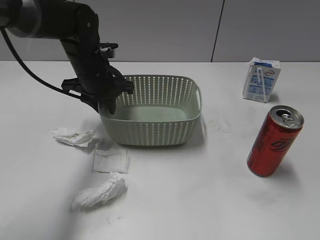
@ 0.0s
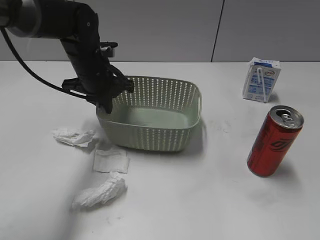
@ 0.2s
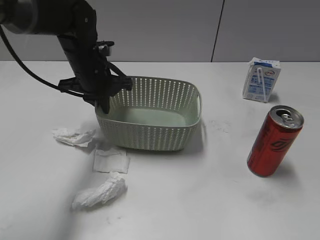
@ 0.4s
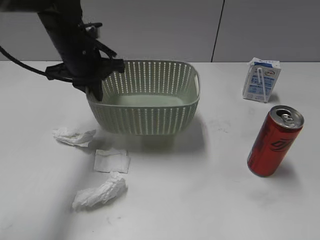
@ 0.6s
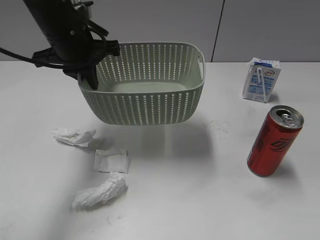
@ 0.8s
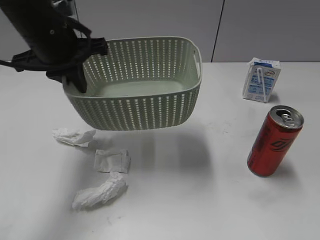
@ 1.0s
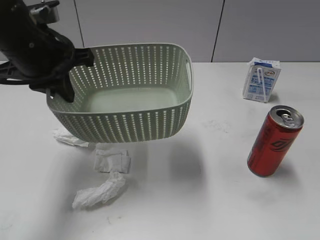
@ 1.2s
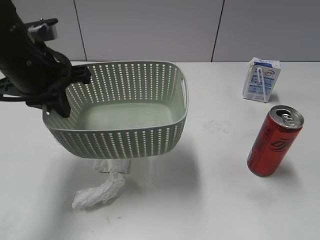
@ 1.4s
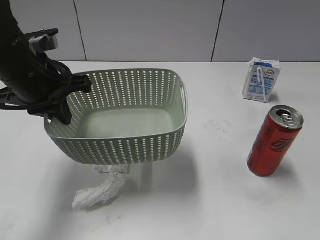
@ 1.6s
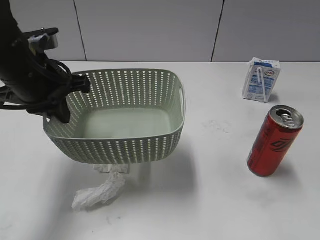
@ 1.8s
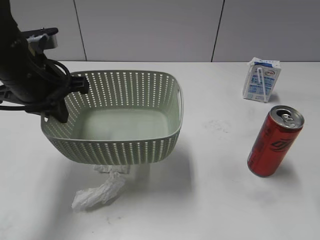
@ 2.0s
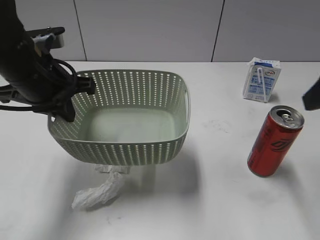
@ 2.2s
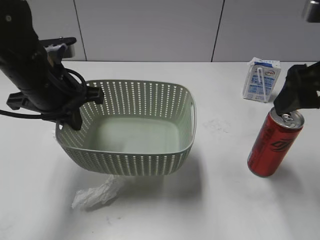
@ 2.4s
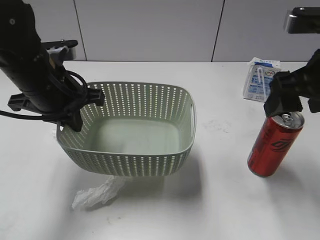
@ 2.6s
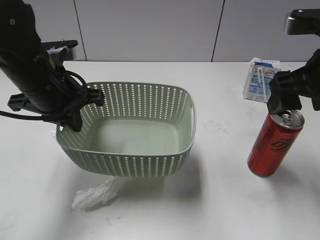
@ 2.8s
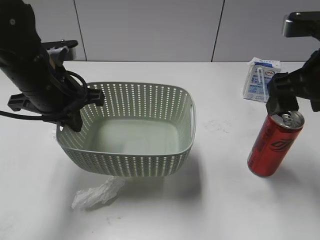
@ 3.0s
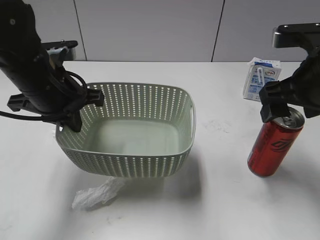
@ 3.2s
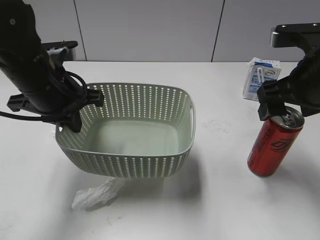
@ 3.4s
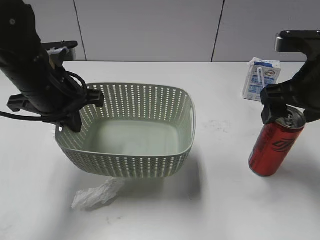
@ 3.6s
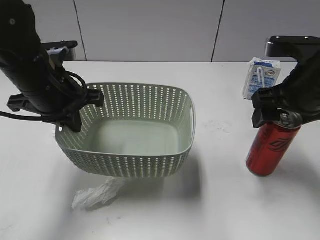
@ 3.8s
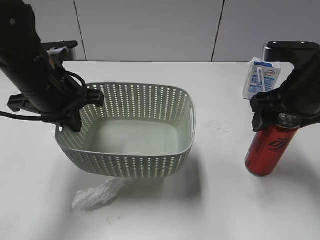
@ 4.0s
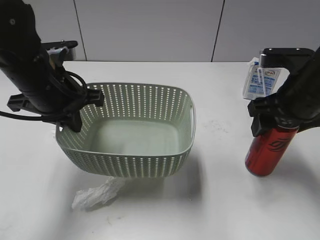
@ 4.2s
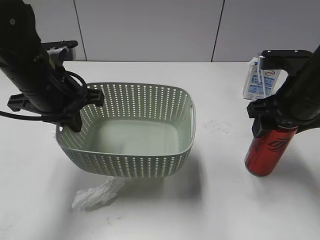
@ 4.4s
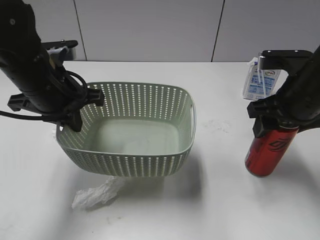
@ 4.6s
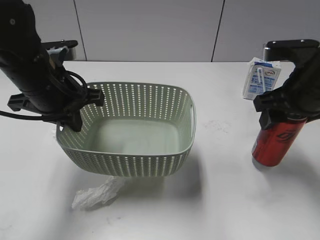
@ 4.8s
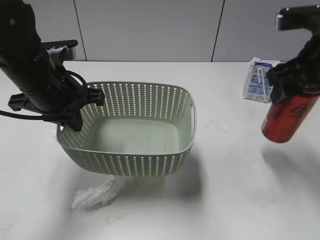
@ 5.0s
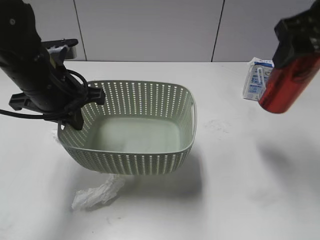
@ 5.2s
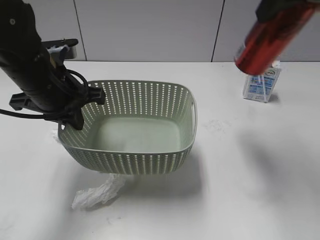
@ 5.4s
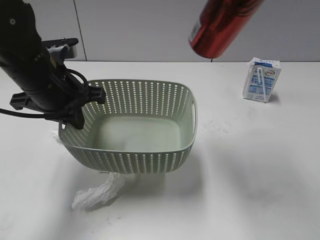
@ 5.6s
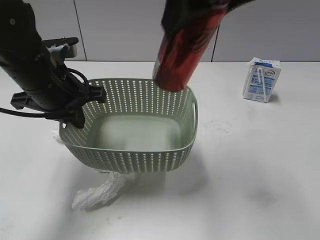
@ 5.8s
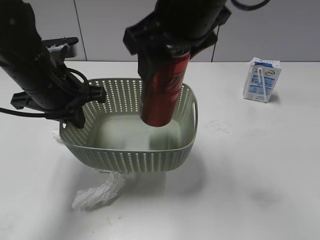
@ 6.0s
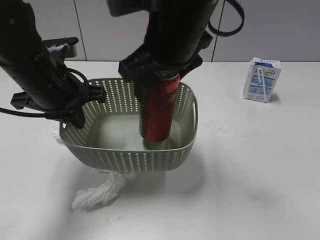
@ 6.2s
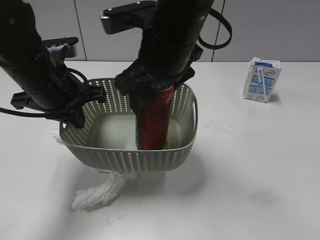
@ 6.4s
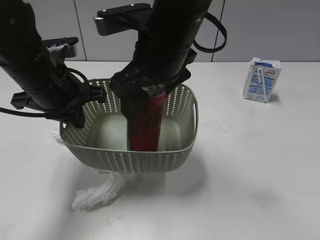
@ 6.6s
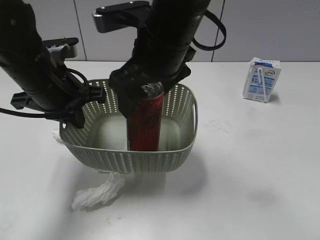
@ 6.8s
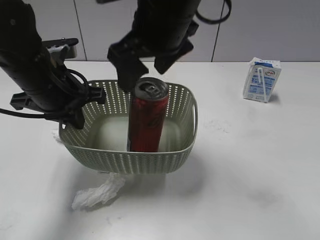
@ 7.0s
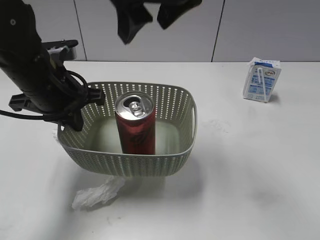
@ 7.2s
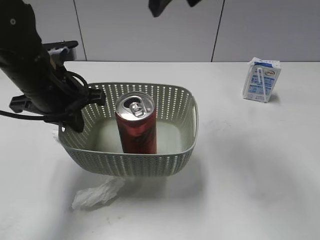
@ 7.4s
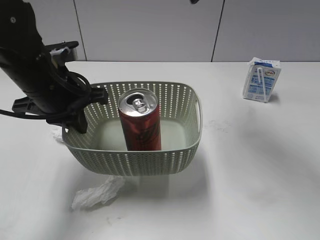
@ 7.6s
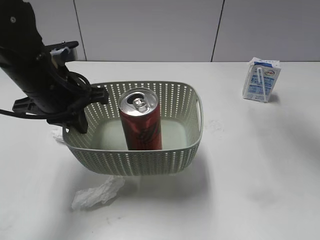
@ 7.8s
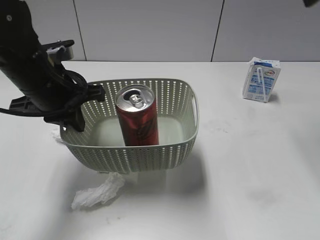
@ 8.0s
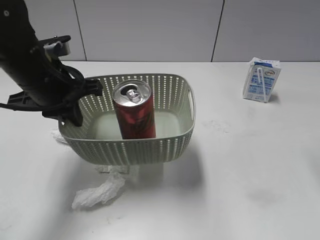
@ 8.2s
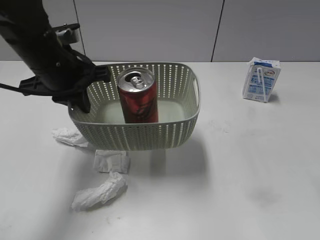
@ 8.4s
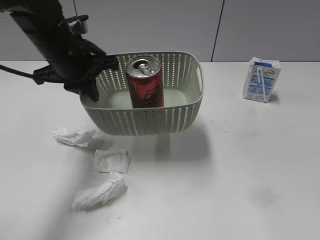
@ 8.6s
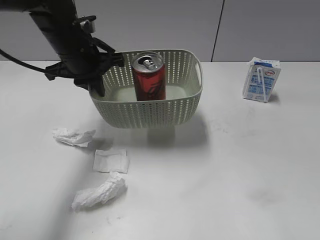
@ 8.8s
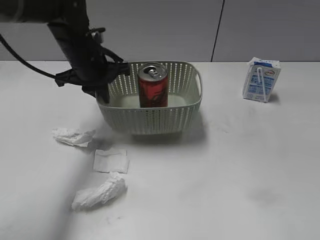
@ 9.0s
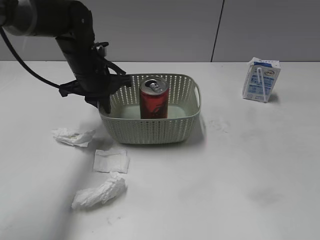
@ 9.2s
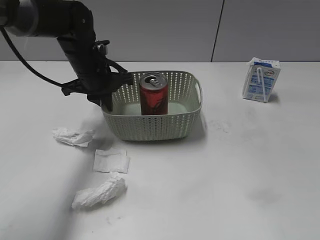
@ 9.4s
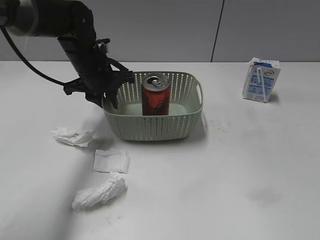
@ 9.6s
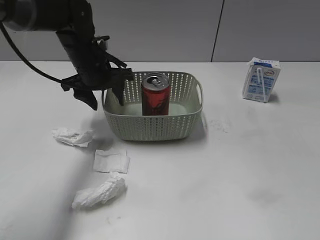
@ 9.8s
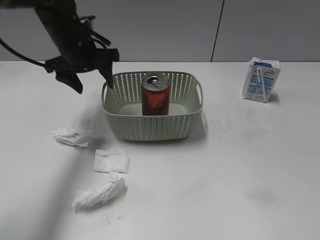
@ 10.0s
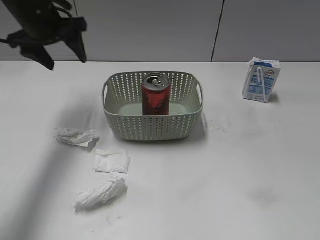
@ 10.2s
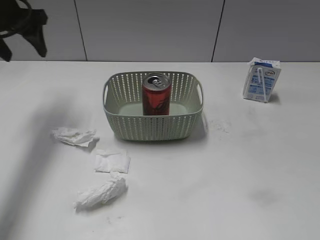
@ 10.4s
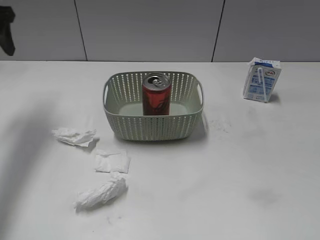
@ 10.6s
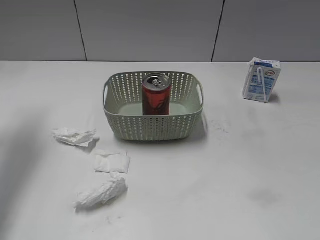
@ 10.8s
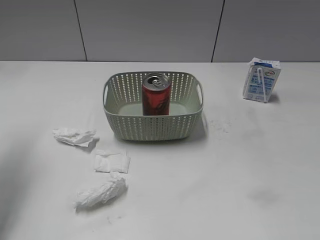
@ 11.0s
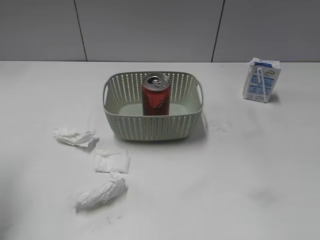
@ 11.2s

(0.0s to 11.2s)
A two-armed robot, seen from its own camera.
Step, 0.4s - 2.0s: Lift the basket with left gripper.
Step, 2.2s - 4.6s: Grasp the cola can with right gripper.
Step, 4.8s - 6.8s: Place the cola can in the basket with right gripper.
Step, 7.0s - 9.6s: Place the basket on the table with left gripper.
0.0s - 1.6s: The right gripper moves forward and upward, some 10 cm; the left gripper goes some 15 cm backward, upward and to the left.
1.6s - 3.2s: The right gripper is displaced forward by some 20 cm, and opens its fingers.
3.2s - 4.8s: The right gripper closes.
4.8s - 6.4s: The right gripper heads to the left, covering roughly 20 cm.
6.4s - 8.0s: The right gripper is displaced to the right and upward by approximately 30 cm, and opens its fingers.
8.0s - 9.6s: The left gripper moves forward and downward, roughly 15 cm, and opens its fingers. Meanwhile the right gripper is displaced backward by approximately 30 cm.
9.6s - 11.2s: The left gripper travels backward, to the left and upward by about 30 cm, and opens up.

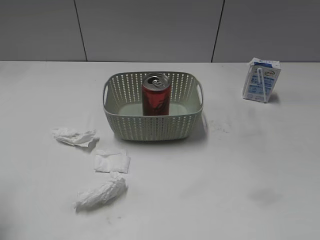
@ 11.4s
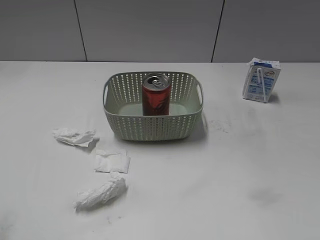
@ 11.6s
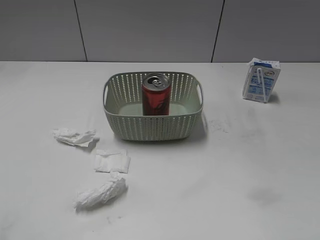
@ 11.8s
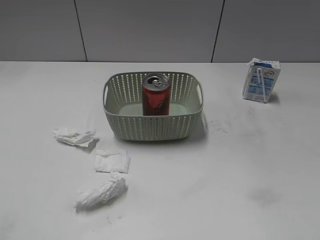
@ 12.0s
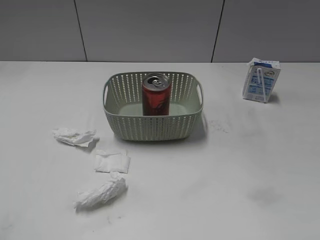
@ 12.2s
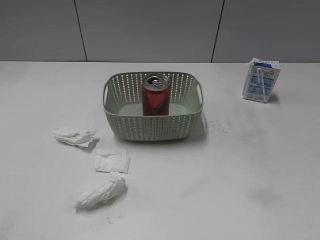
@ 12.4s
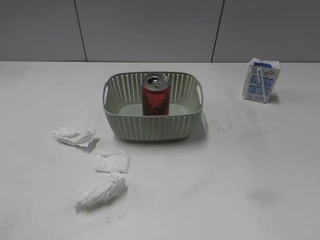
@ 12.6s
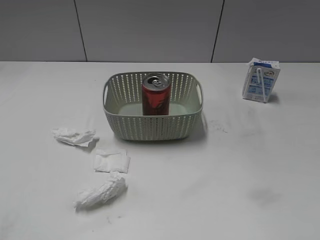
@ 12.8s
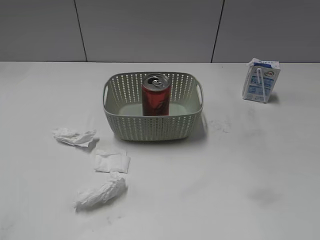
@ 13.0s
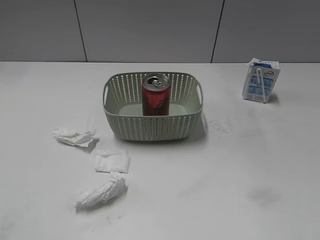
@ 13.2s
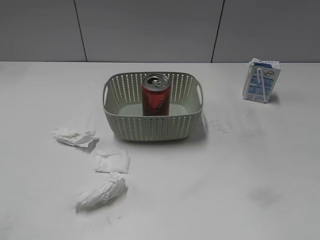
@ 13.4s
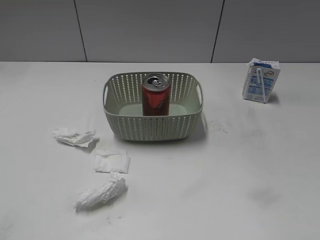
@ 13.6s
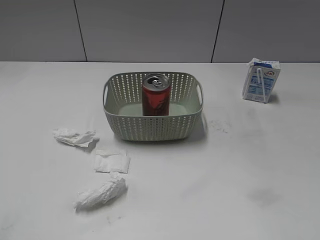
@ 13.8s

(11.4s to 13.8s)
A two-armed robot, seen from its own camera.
12.6s - 13.8s: The two grippers keep their place.

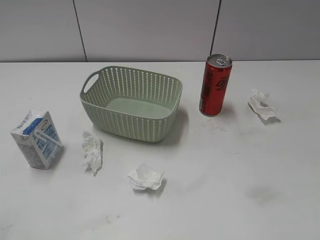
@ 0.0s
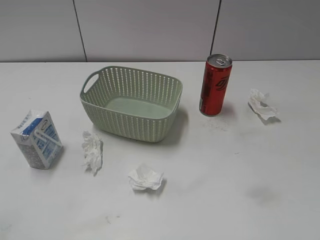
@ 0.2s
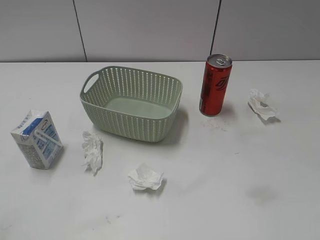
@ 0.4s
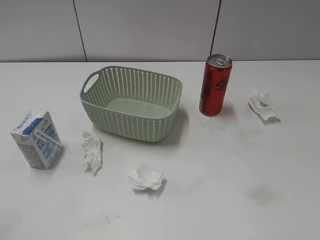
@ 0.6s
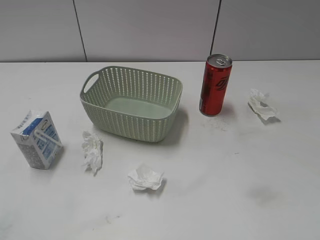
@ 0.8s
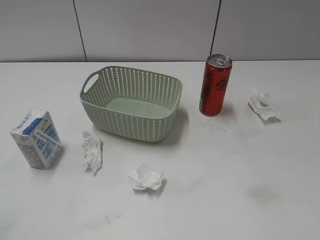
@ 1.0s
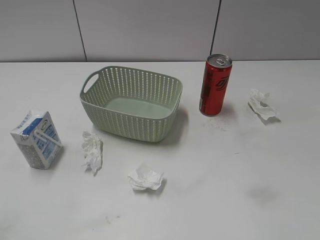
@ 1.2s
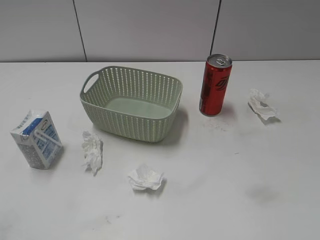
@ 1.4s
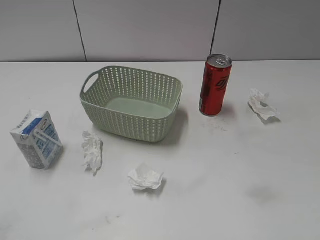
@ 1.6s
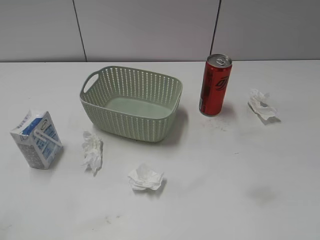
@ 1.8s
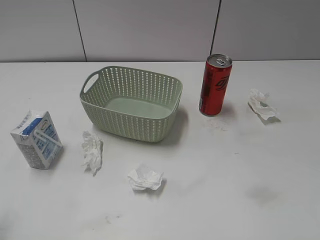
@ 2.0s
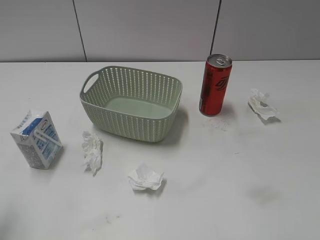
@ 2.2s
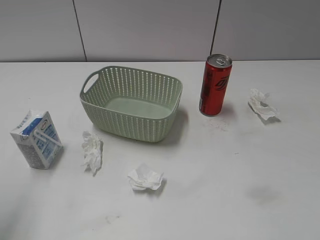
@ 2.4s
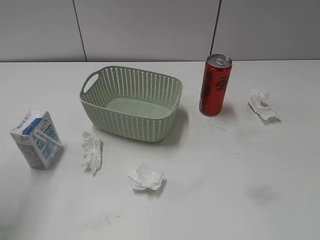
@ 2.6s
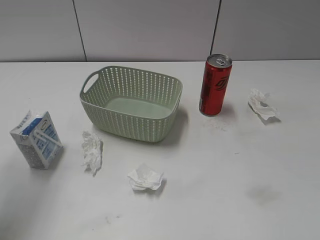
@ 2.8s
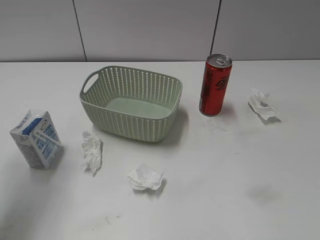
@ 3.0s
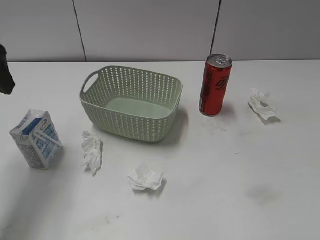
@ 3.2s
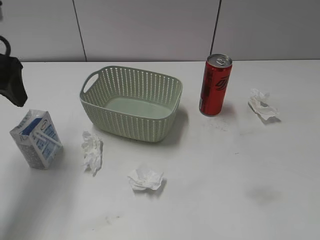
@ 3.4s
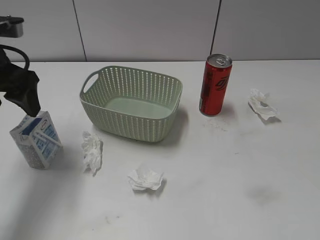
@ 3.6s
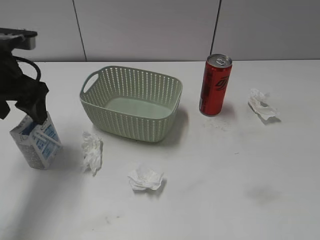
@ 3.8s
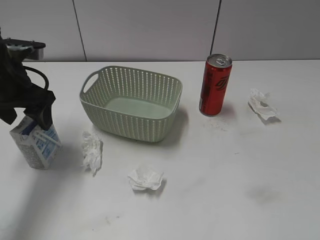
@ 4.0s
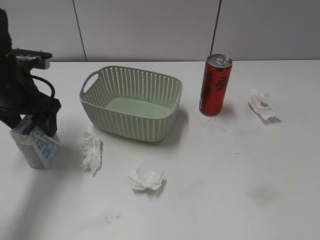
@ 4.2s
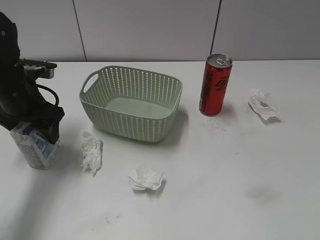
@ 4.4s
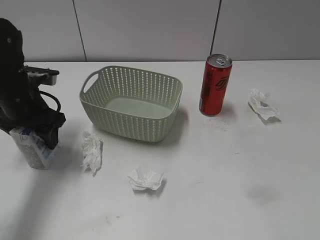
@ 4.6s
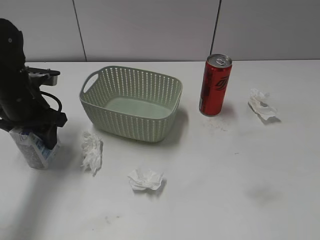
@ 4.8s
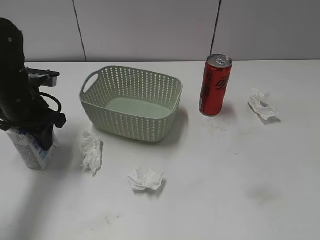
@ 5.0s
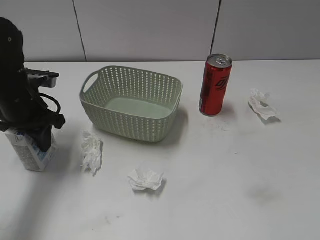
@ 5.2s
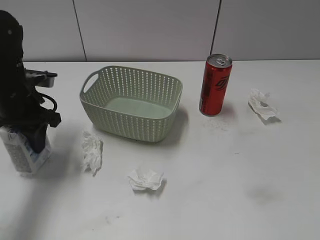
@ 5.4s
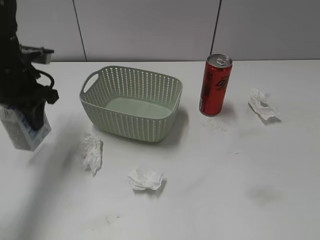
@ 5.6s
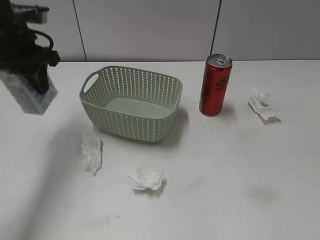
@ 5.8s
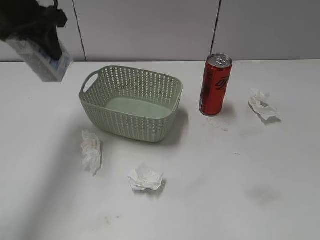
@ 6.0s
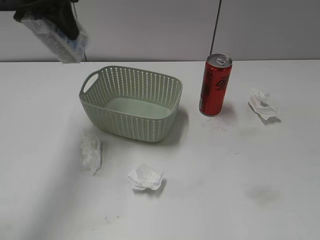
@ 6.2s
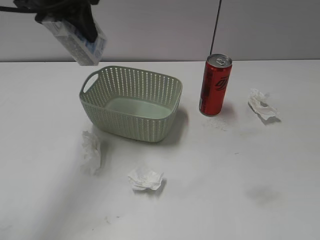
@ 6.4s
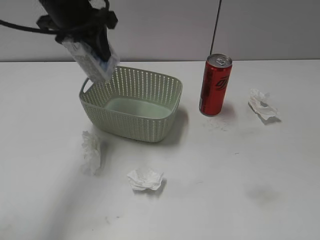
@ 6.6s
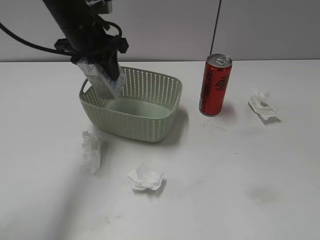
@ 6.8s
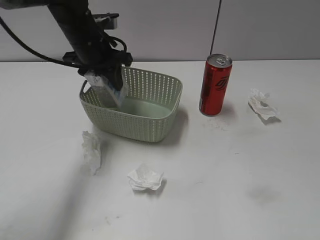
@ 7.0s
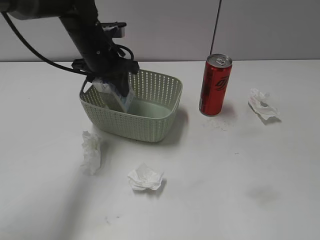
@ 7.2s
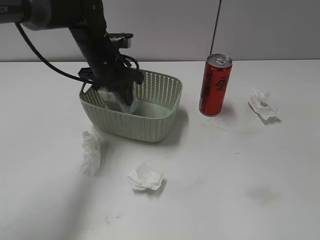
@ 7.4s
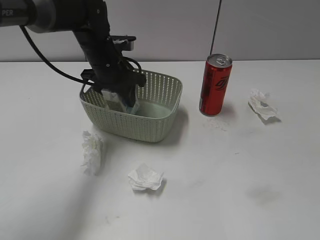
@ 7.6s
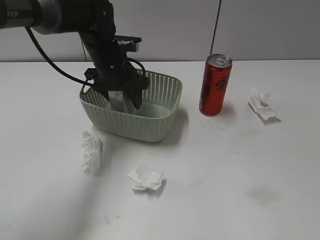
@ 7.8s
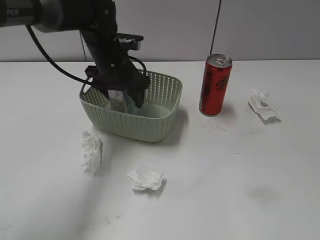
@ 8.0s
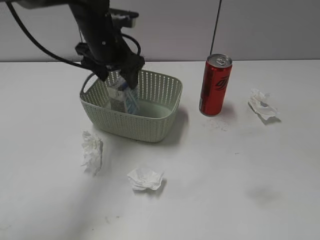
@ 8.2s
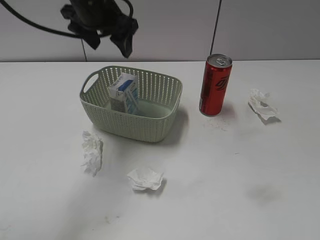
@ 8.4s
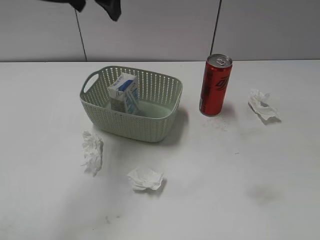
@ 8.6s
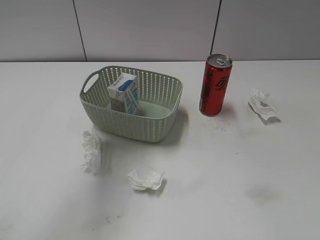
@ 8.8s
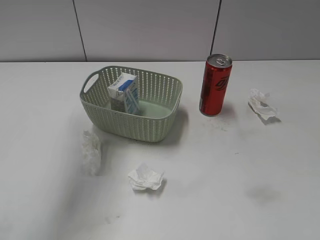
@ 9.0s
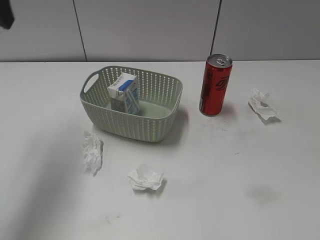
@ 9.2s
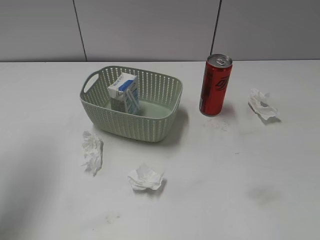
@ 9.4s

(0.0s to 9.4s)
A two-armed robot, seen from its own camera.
Step, 3.2s - 5.0s: Grasp the milk with left gripper.
Step, 5.2s - 8.4s: Place the milk in the basket with left gripper.
1.6s - 3.2s: The left gripper shifts roughly 25 cm forward.
3.2s - 4.8s: The left gripper moves downward and forward, about 15 cm, and closes.
4.8s - 6.2s: The left gripper heads upward, covering approximately 20 cm, and closes its fingers.
6.2s - 7.8s: The left gripper goes roughly 20 cm downward and to the right, and opens its fingers.
7.8s - 9.4s: The left gripper moves to the left, upward and backward, about 30 cm.
